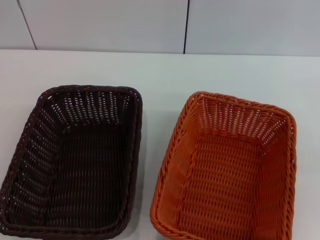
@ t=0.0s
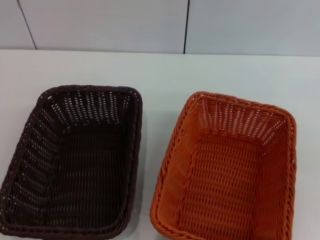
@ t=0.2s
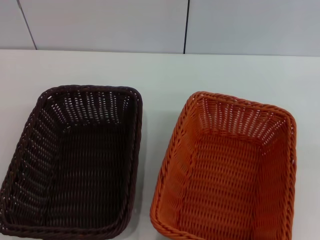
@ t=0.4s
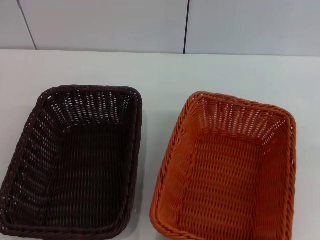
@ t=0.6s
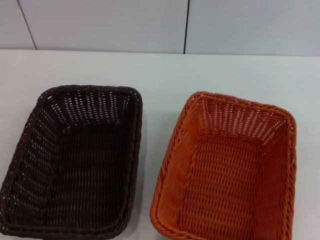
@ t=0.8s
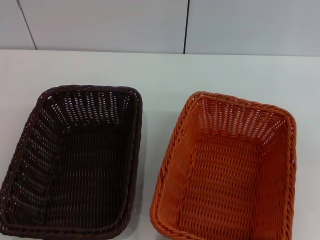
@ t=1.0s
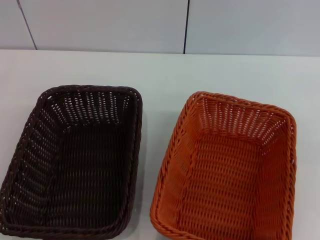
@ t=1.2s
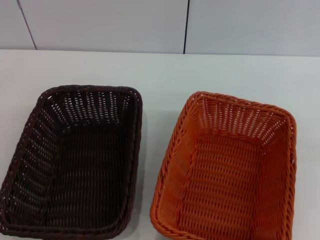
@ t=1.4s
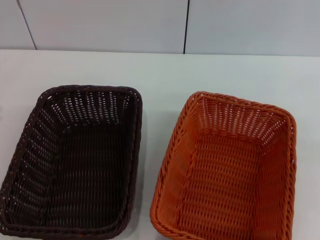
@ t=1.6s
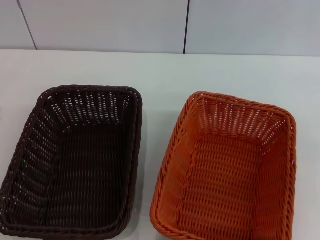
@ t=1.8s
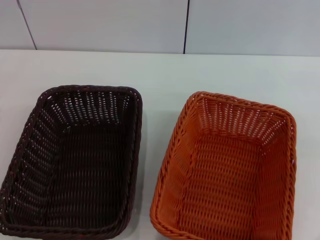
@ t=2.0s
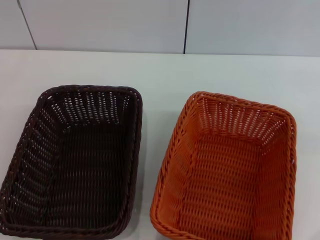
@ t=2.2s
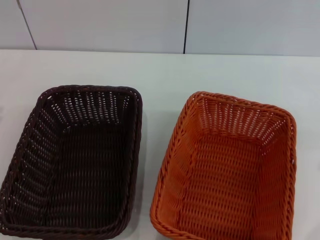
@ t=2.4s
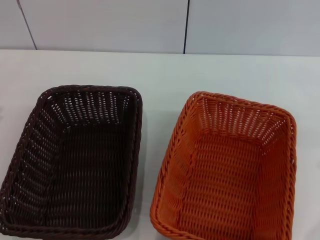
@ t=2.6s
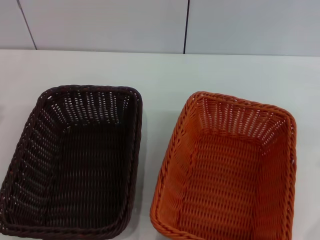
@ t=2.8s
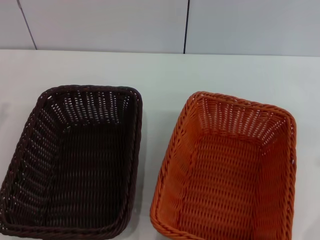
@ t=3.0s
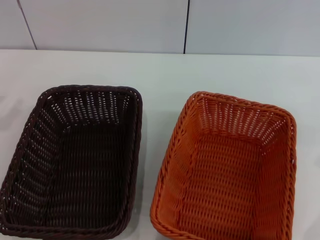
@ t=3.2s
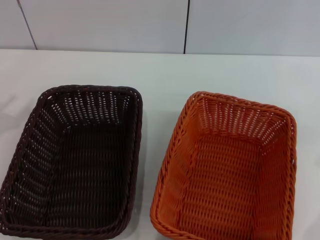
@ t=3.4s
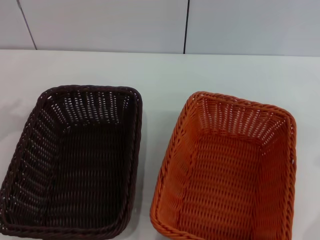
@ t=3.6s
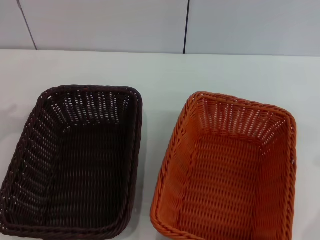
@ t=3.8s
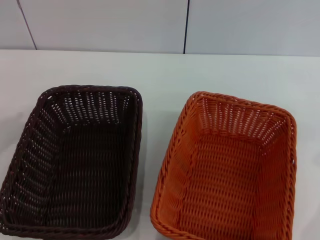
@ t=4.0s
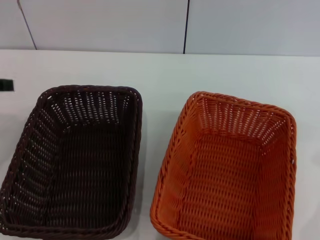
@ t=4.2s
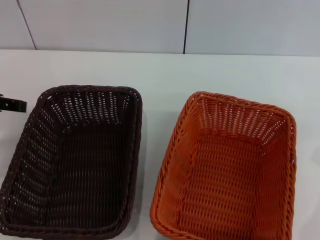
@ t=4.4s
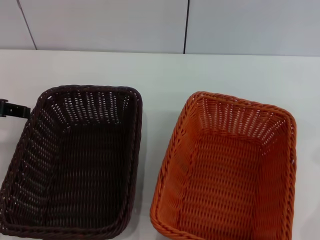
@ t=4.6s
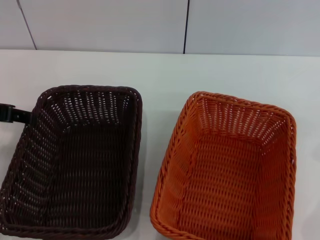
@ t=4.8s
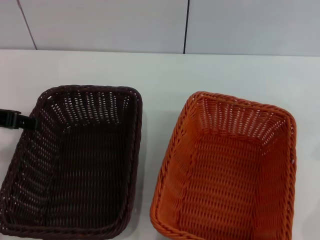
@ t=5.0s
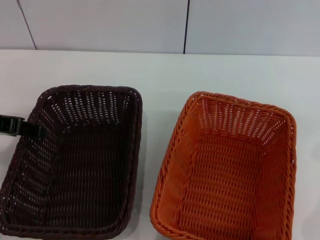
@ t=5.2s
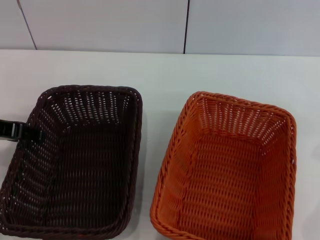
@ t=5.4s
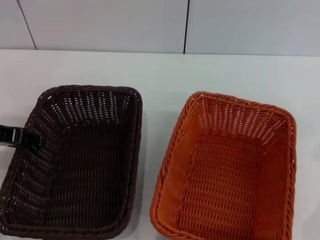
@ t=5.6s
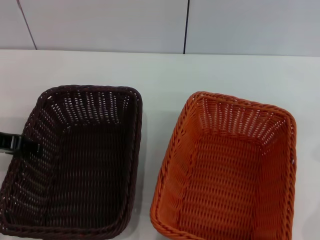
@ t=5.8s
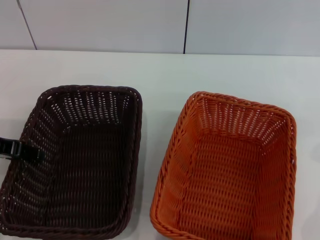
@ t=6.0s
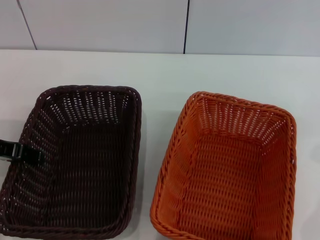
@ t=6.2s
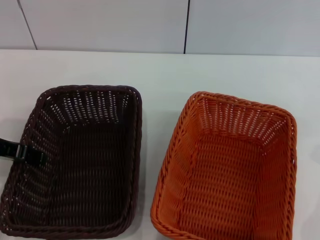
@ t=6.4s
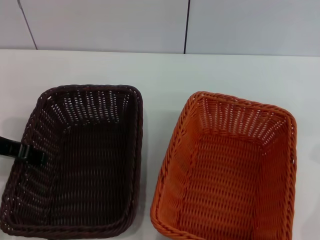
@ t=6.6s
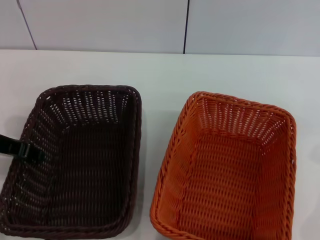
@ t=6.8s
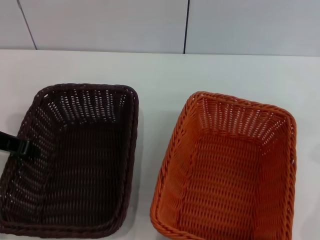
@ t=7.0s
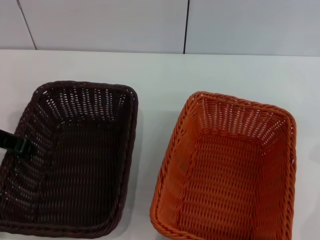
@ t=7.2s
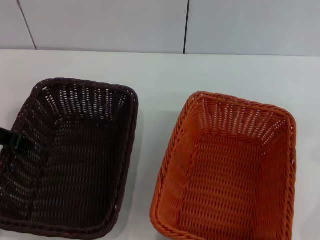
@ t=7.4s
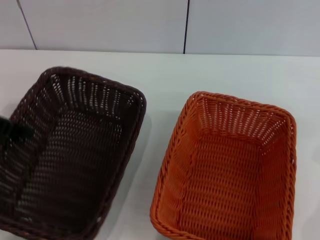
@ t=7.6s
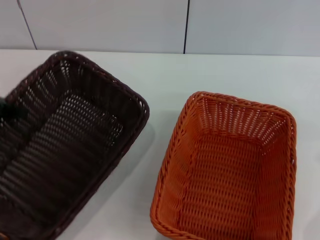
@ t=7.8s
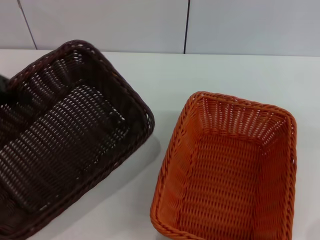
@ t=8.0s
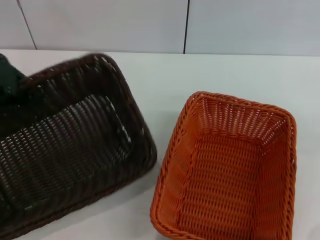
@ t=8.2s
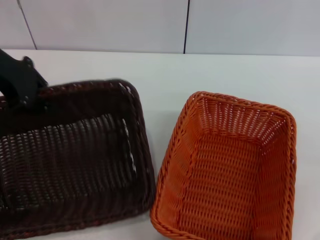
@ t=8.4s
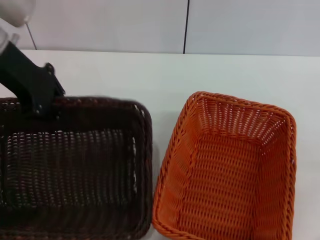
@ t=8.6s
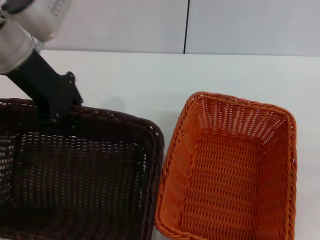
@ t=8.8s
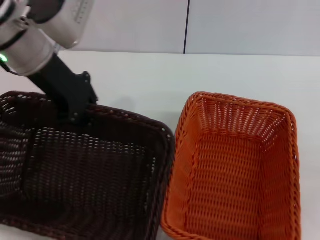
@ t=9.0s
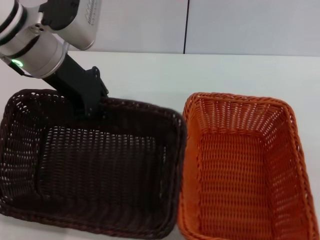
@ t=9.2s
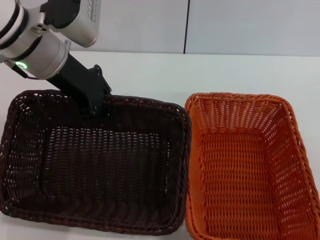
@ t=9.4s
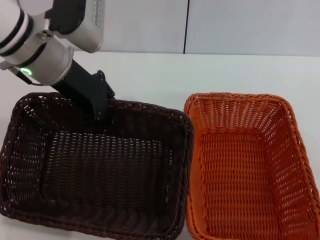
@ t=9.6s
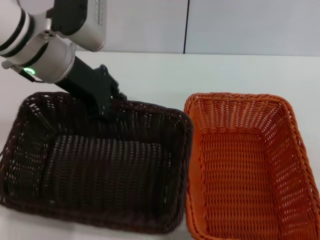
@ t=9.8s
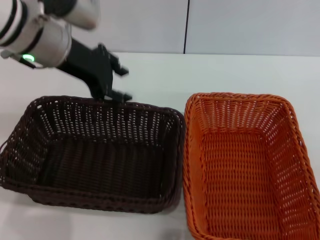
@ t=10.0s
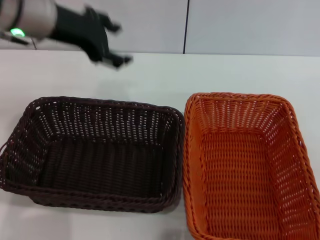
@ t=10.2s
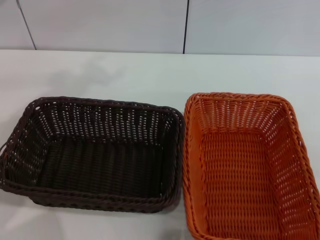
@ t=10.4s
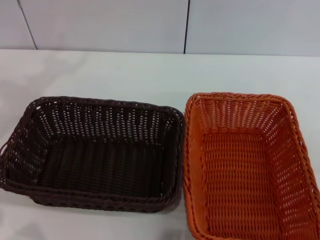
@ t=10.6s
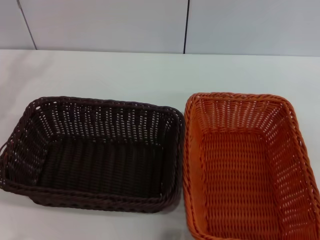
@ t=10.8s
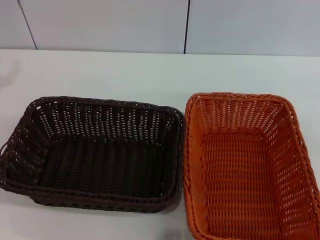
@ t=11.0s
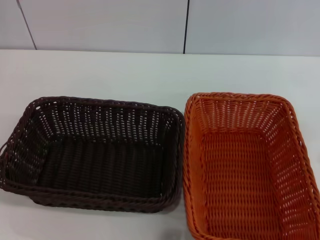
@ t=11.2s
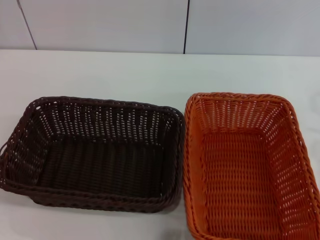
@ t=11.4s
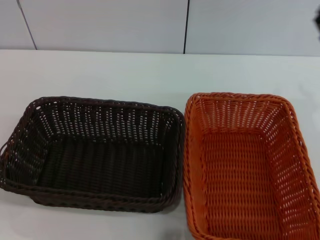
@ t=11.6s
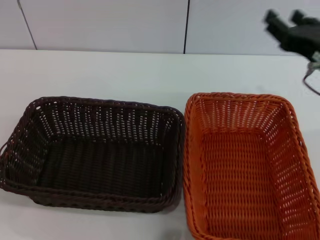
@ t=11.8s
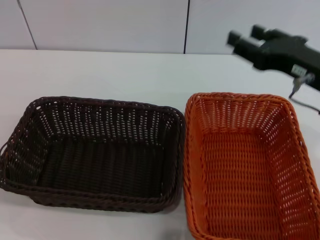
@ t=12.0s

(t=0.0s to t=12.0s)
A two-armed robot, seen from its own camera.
Step, t=0.0s - t=7.6s: Pick up the dark basket with the left gripper.
Step, t=7.8s - t=9.8s: Place the dark basket in the center of view with the left gripper.
t=3.0s - t=4.4s: The left gripper shifts approximately 15 cm upward, to the right and forward.
t=4.4s - t=6.0s: The left gripper goes approximately 5 cm downward.
t=6.0s - t=7.6s: The left gripper closes.
t=7.6s - t=9.0s: The right gripper heads backward, covering about 5 cm; the left gripper is displaced to the right and forward by approximately 15 cm.
t=9.0s - t=10.4s: The left gripper moves to the left, some 10 cm, and opens its fingers.
t=10.4s - t=12.0s: The left gripper moves to the left, backward and downward, about 30 cm, while the right gripper travels to the left, upward and forward by about 15 cm.

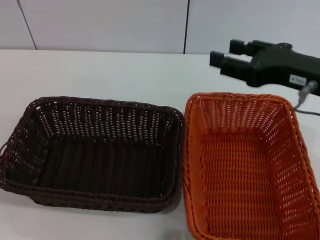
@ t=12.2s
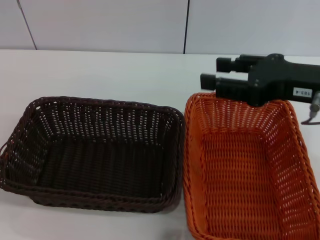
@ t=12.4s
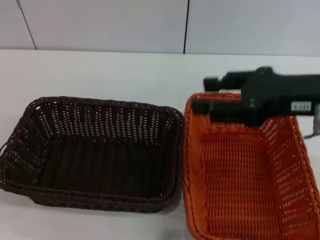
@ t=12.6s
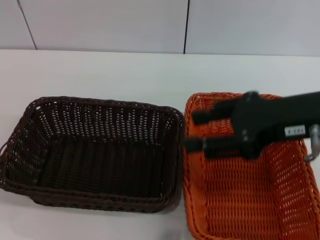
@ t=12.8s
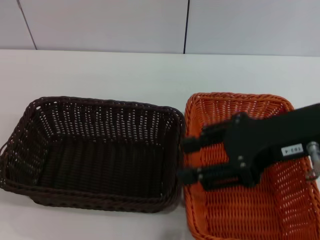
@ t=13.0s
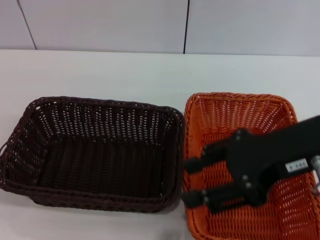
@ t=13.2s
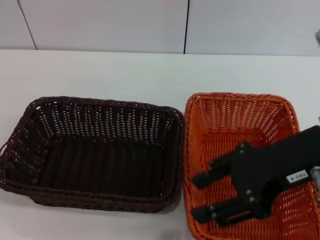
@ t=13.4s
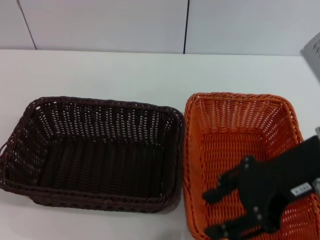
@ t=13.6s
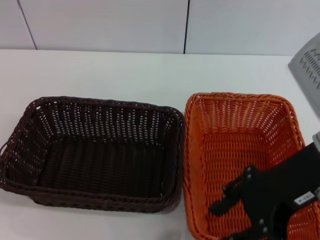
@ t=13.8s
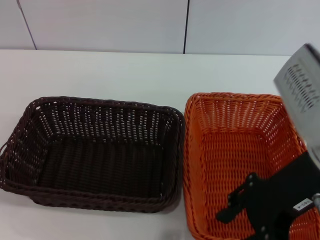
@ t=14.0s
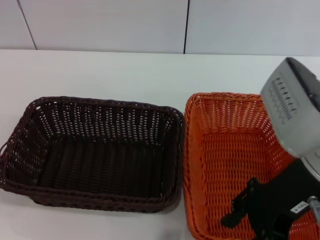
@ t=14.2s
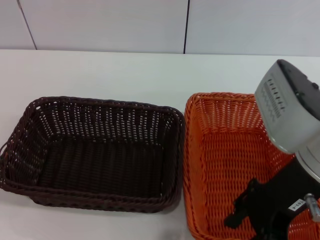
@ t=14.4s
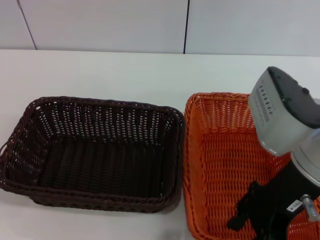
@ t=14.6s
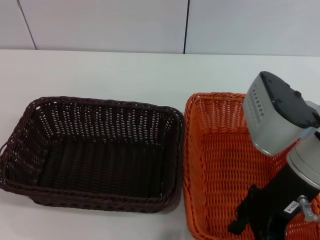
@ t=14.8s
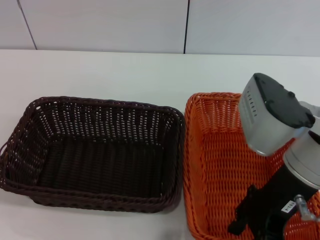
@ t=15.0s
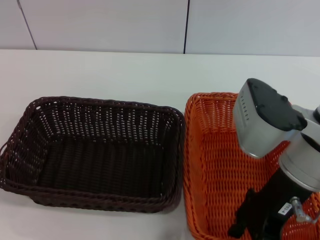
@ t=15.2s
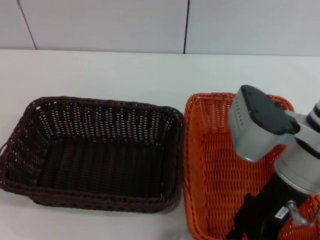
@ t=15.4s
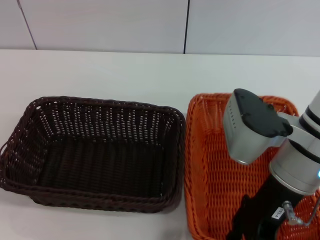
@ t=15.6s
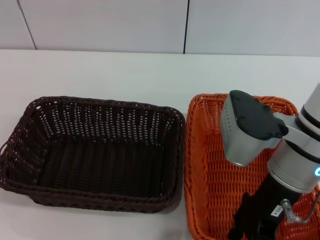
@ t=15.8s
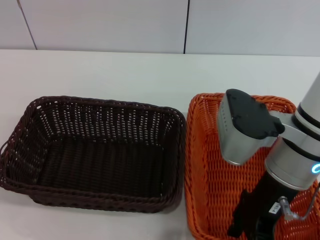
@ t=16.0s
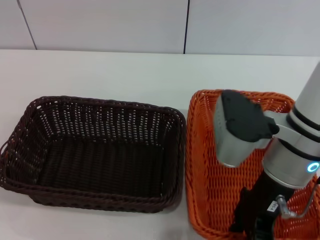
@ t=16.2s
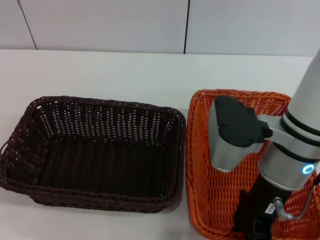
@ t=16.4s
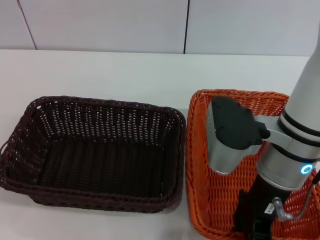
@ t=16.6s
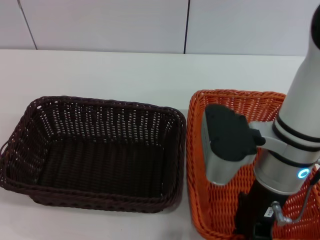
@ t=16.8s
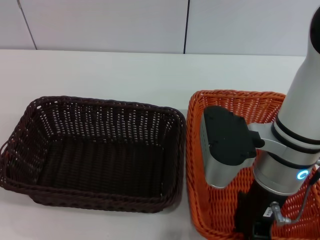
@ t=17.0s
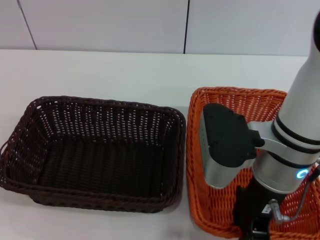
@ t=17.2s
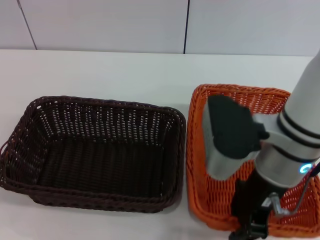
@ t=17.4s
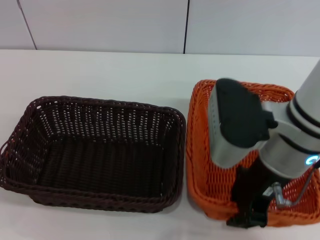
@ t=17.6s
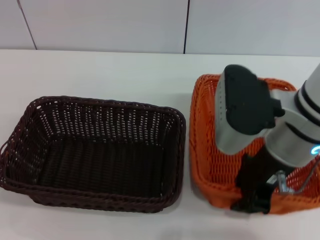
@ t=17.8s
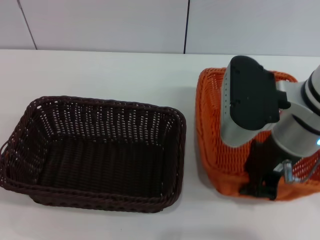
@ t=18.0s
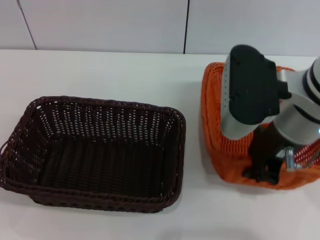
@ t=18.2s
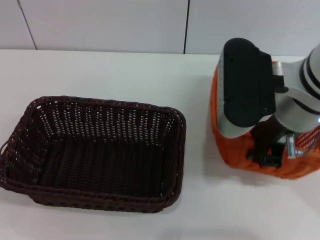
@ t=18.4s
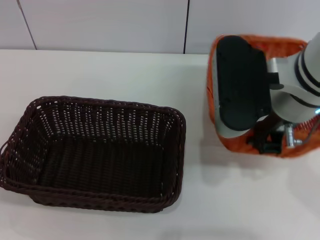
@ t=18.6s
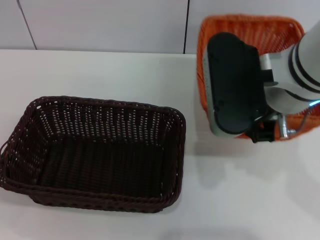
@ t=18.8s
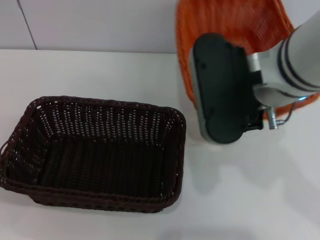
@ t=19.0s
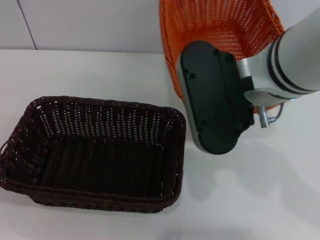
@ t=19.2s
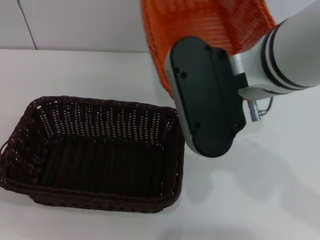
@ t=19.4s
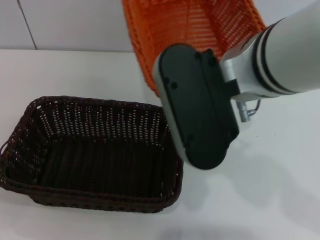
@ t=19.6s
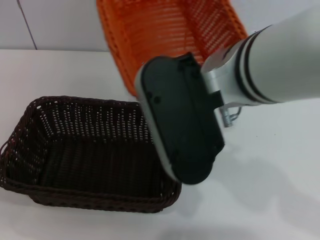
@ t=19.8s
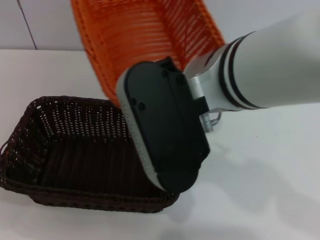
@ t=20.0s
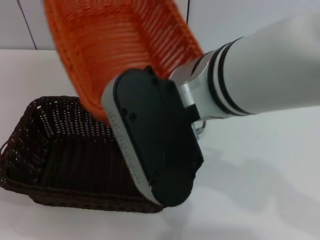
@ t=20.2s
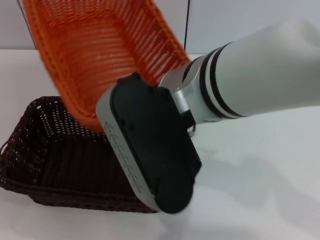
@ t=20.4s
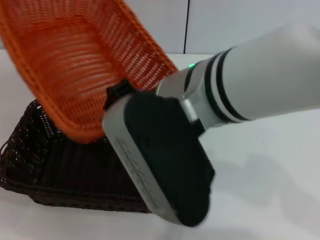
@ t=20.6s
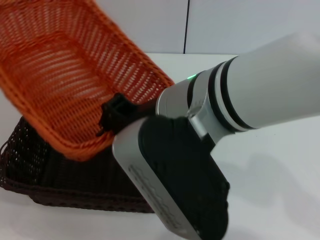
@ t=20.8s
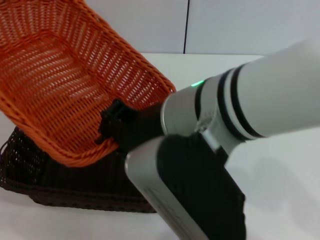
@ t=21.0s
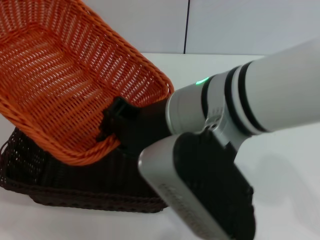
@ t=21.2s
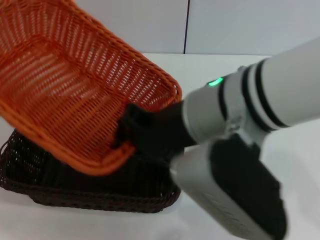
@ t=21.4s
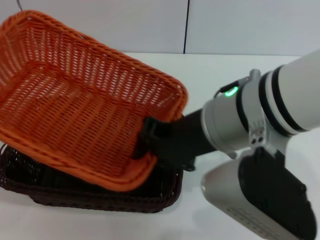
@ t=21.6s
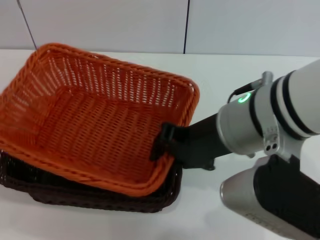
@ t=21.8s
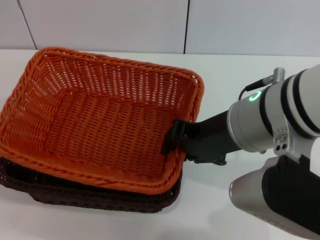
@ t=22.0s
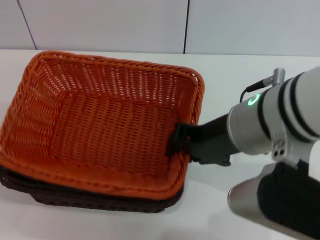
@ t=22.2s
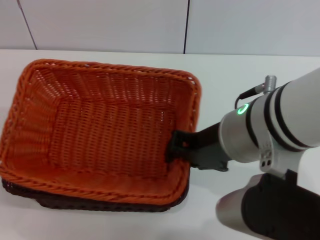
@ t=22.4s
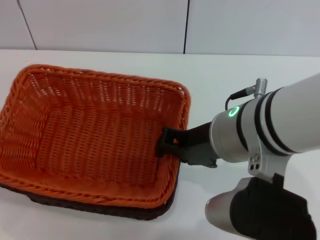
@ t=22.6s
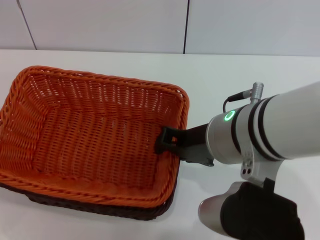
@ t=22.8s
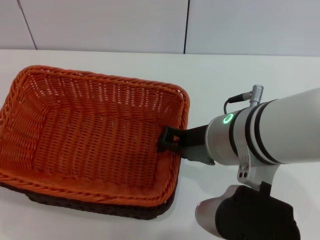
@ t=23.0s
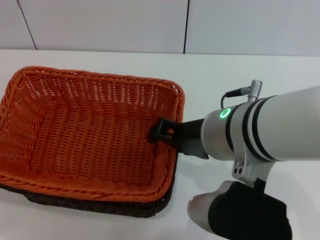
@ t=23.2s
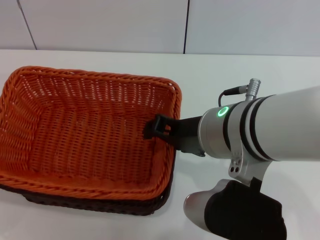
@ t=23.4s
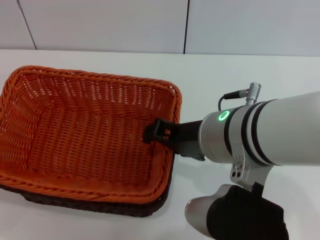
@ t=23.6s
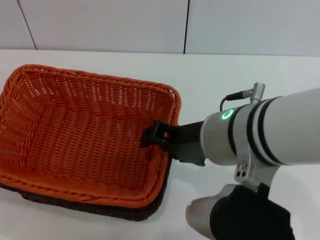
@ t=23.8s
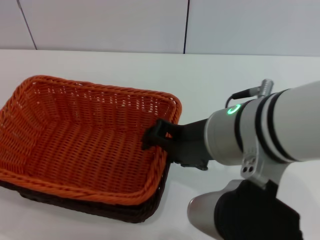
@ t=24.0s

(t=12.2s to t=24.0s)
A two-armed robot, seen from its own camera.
Step, t=12.2s - t=17.6s: Pick up the light basket with the right gripper.
t=13.6s - t=15.2s: The right gripper ends up approximately 5 cm from where it was.
t=15.2s - t=16.6s: There are only small adjustments of the grippers.
t=16.6s - t=18.2s: The right gripper goes some 5 cm upward, and closes up.
t=18.2s - t=19.6s: The right gripper goes approximately 10 cm to the left and upward.
t=21.0s - t=22.6s: The right gripper shifts by approximately 5 cm.
t=22.6s - t=24.0s: The right gripper opens up.
